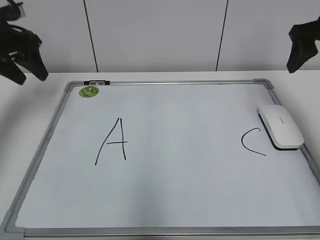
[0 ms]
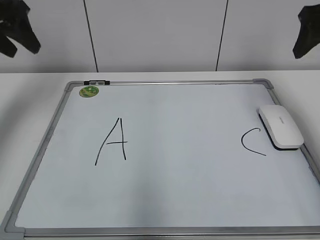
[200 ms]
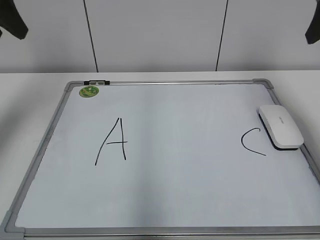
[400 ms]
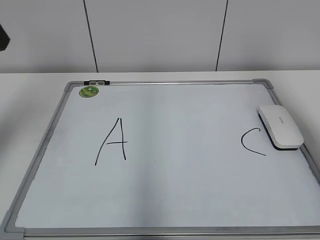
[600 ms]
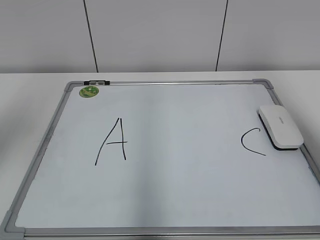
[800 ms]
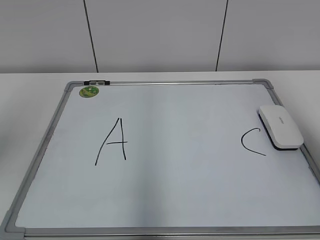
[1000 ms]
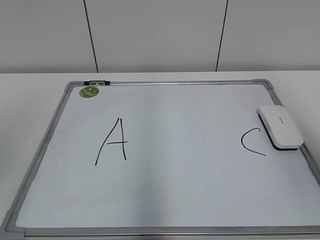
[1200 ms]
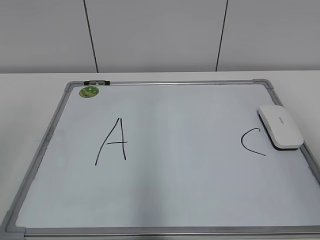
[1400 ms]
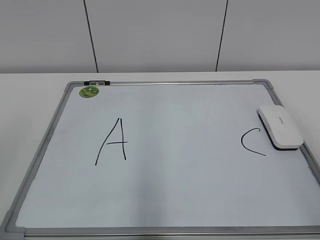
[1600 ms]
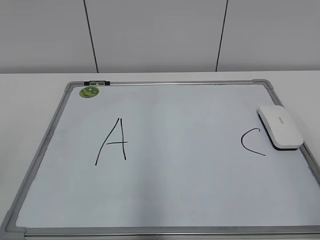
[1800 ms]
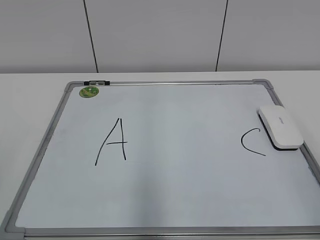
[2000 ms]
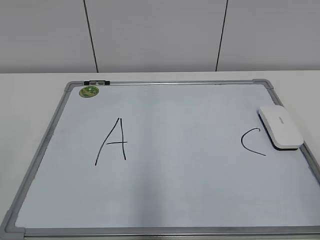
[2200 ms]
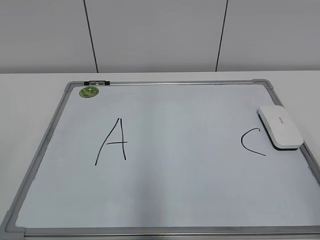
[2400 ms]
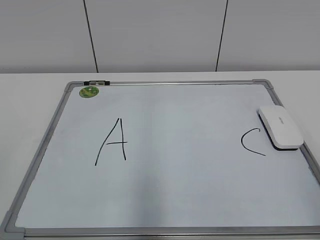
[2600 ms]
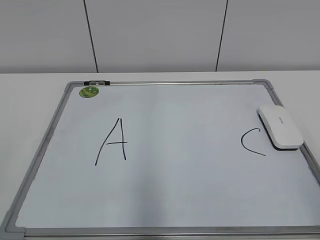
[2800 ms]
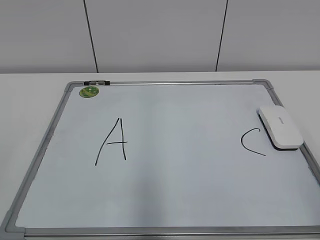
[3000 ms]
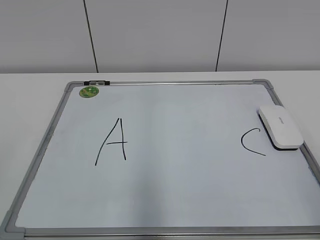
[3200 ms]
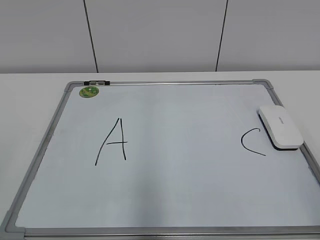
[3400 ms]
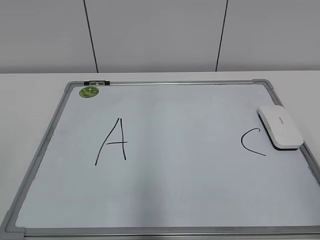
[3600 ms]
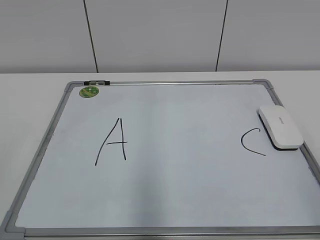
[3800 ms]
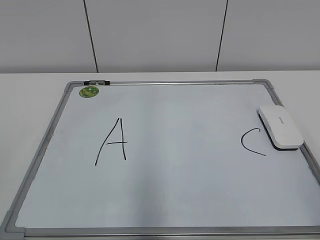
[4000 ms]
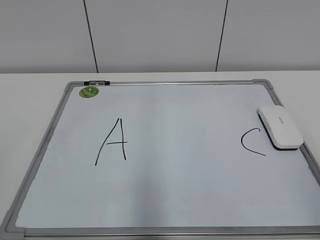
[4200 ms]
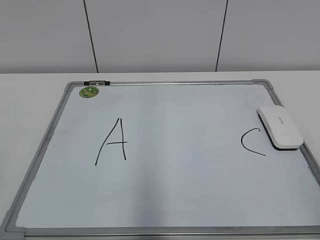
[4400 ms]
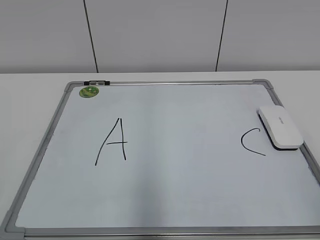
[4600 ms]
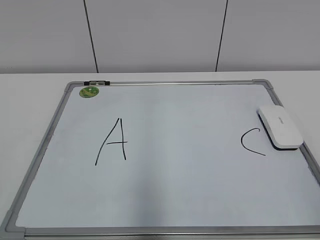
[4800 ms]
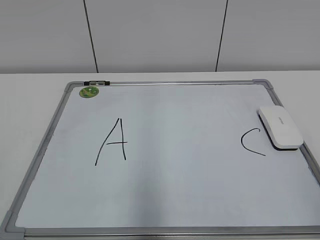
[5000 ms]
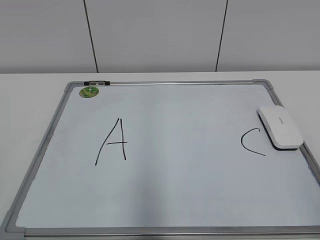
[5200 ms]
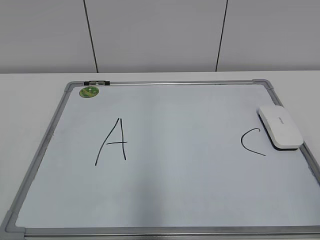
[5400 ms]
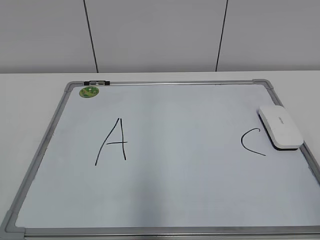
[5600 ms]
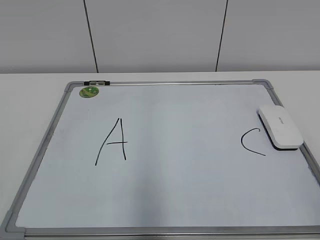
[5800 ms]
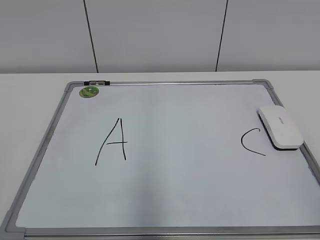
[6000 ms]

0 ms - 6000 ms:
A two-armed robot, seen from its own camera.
Task of the whole recording: pick up the eraser on the blackboard and erase the letter "B".
0 ms - 1600 ms: The grippers both shift backward by some 35 cm.
